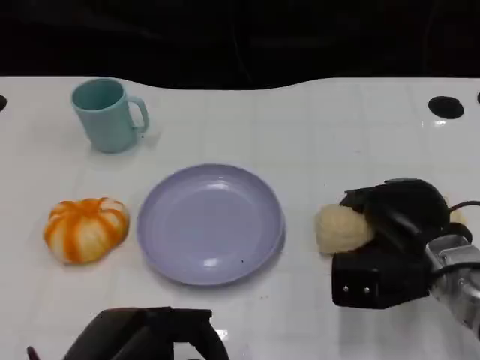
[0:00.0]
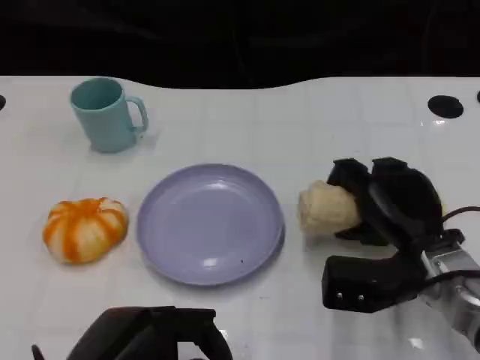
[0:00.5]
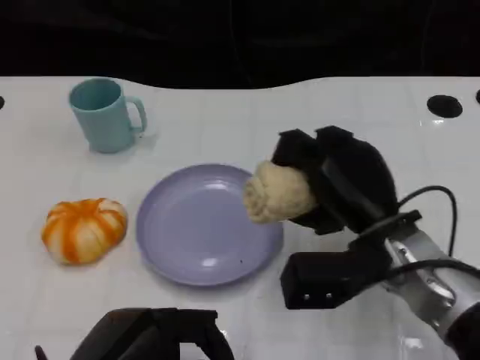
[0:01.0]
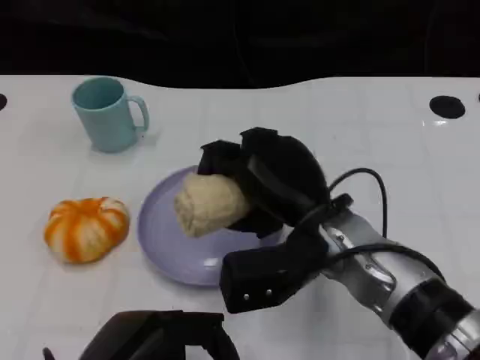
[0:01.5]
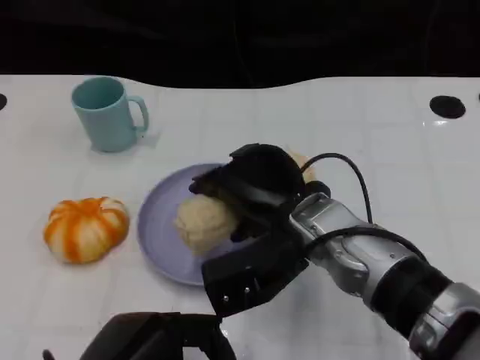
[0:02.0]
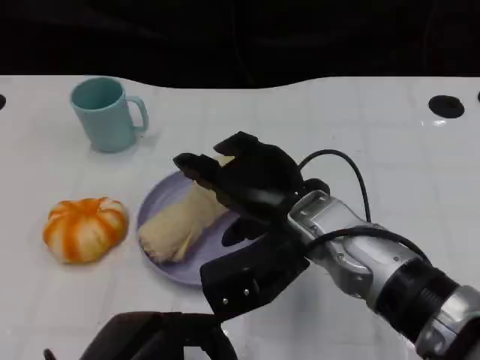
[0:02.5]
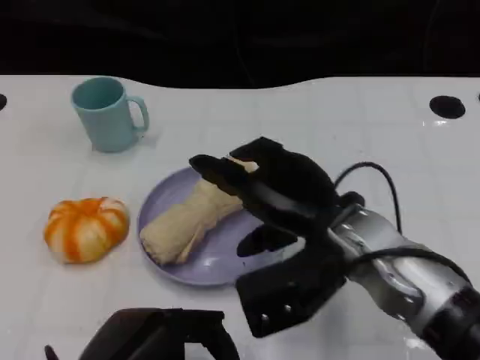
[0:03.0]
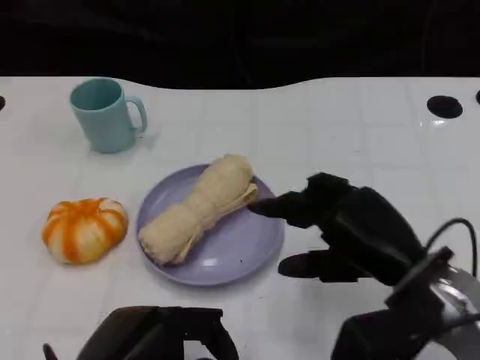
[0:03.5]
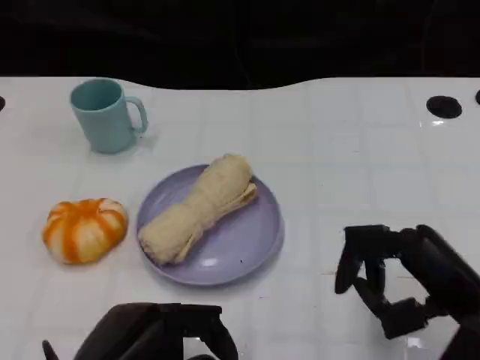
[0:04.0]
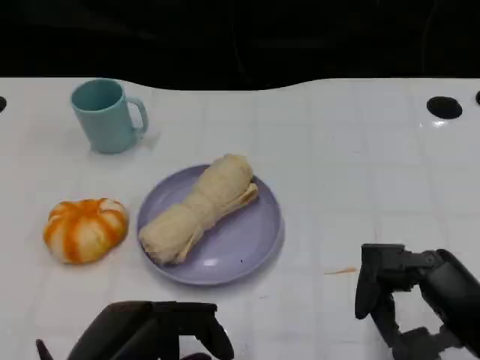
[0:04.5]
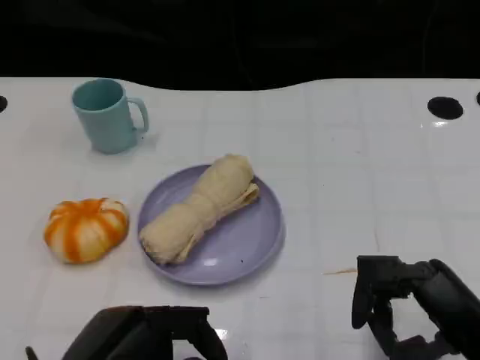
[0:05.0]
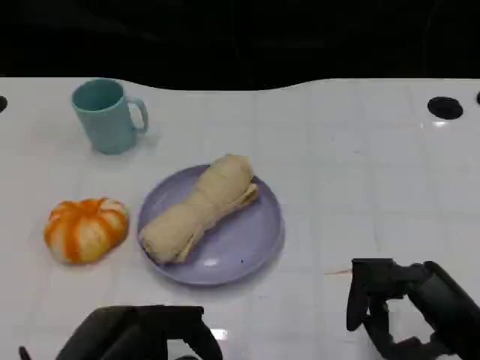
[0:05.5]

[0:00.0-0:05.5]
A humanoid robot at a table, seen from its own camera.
Task of the whole recording: Grasp the towel on the left side of the plate with the left hand and place it into the plate.
0:00.0 to 0:02.0: The right hand goes some 15 cm to the left and upward.
0:02.0 to 0:03.5: The right hand travels to the right and backward by approximately 15 cm.
0:03.5 to 0:05.5: The right hand shifts about 10 cm backward and to the right.

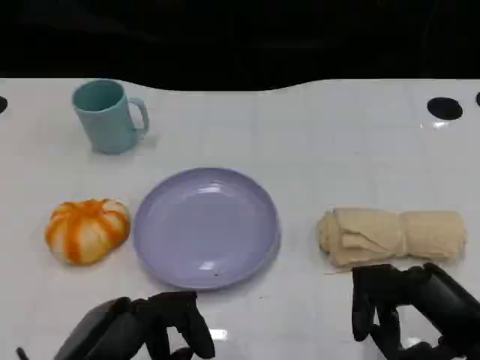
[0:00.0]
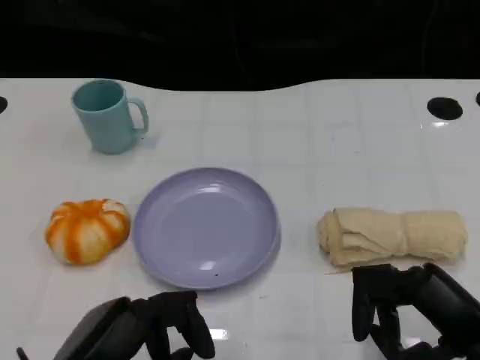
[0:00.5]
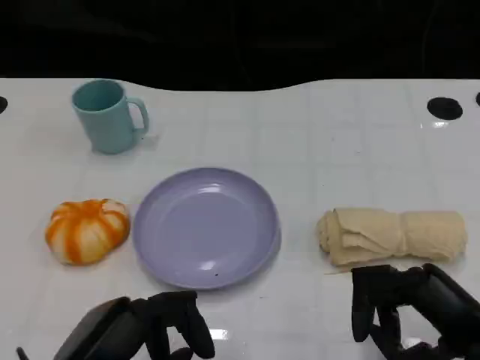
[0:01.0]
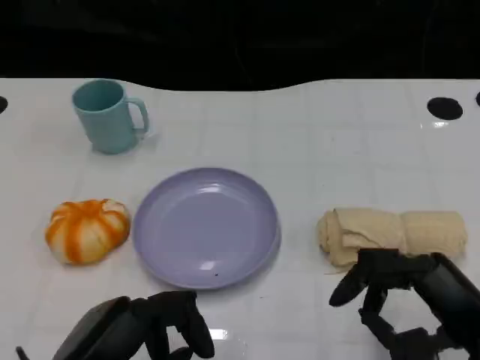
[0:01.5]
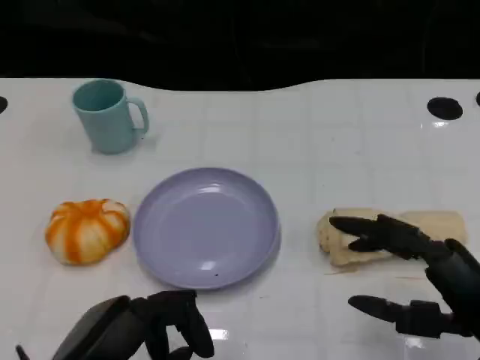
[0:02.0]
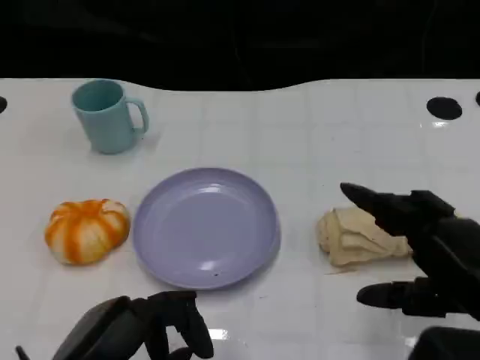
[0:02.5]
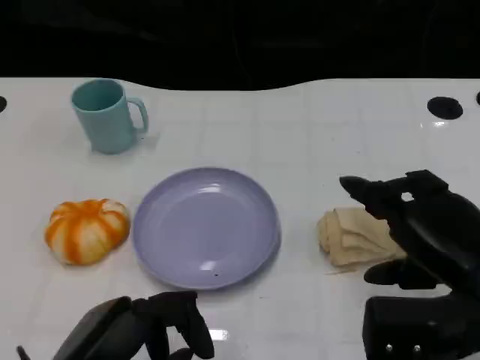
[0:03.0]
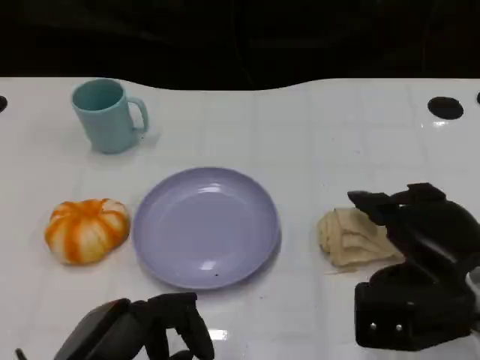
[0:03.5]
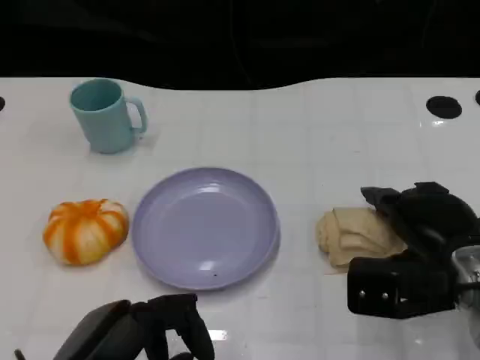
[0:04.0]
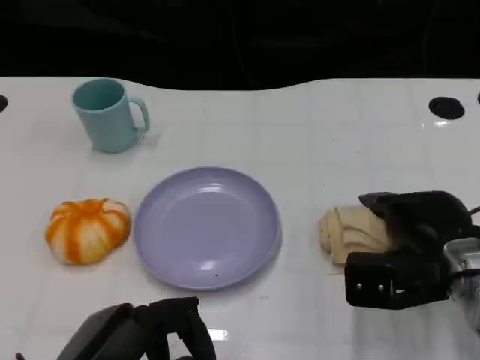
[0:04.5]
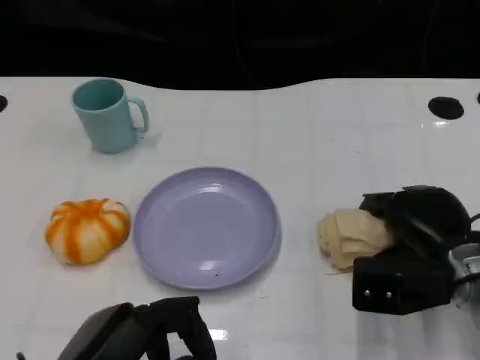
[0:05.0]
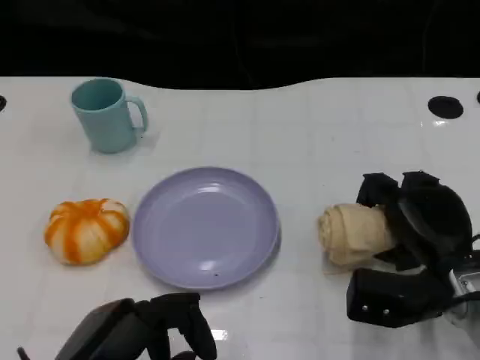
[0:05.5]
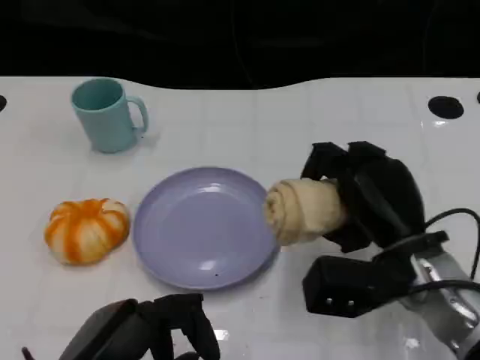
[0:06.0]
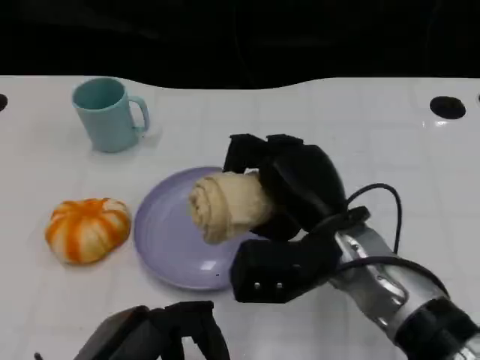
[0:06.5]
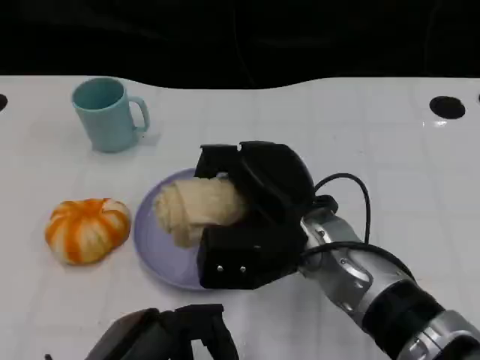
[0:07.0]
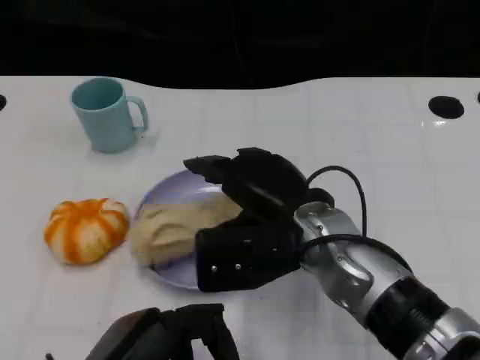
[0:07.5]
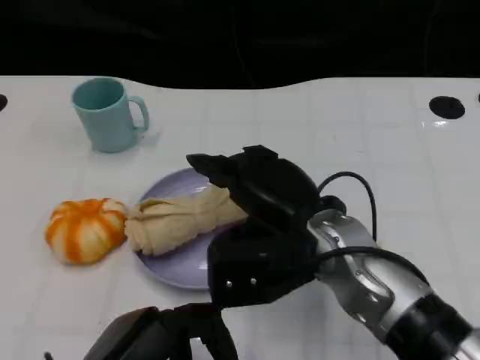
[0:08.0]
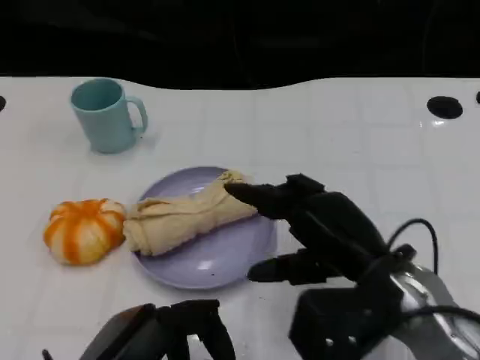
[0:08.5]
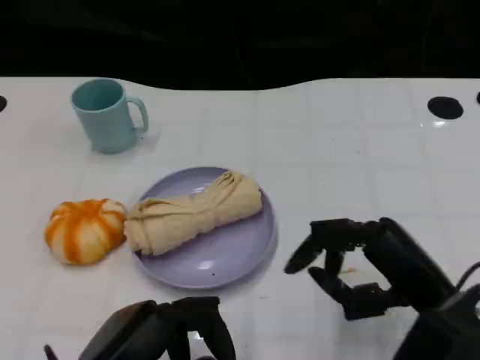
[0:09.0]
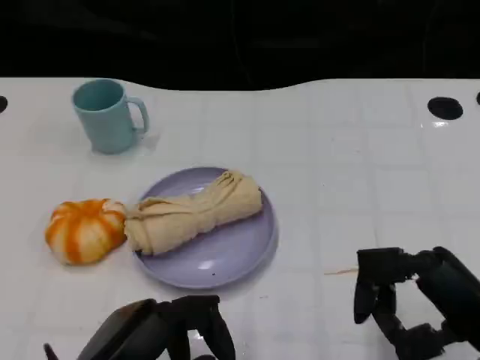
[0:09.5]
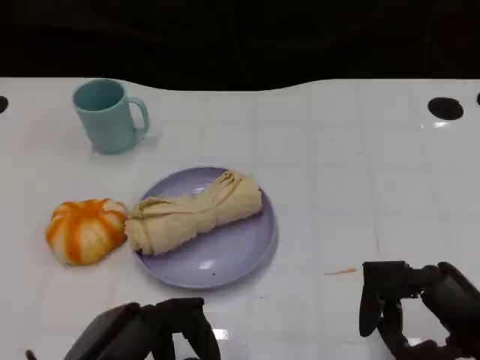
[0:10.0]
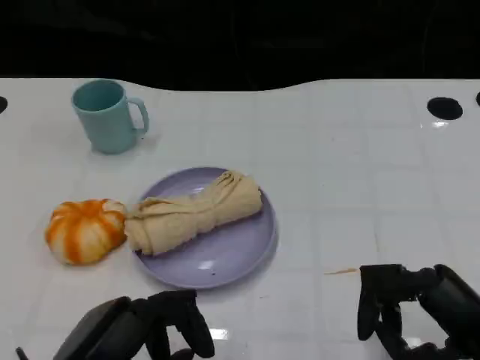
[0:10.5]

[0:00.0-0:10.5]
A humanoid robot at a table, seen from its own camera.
Task of the whole recording: Grasp the towel on the left side of the plate with the left hand and place it into the plate.
0:00.0 to 0:02.0: The hands move only a little.
0:02.0 to 0:04.0: The right hand goes roughly 10 cm forward.
0:04.0 to 0:06.5: The right hand heads to the left, covering approximately 15 cm.
0:06.5 to 0:08.5: The right hand shifts about 5 cm to the right.
0:08.5 to 0:10.5: The right hand is displaced to the right and backward by approximately 10 cm.
